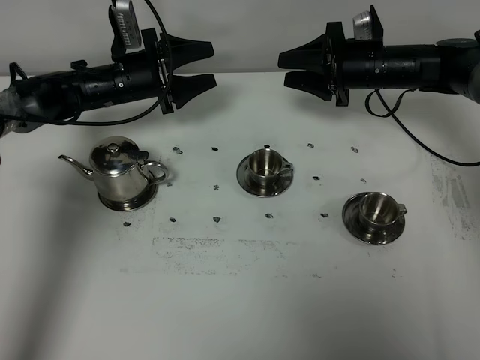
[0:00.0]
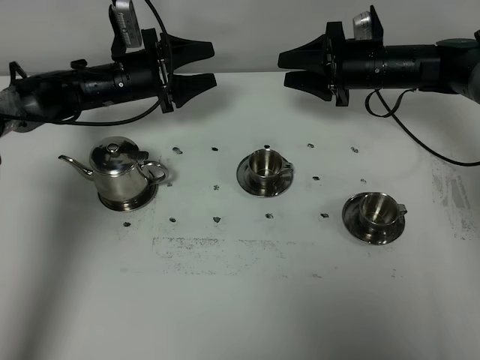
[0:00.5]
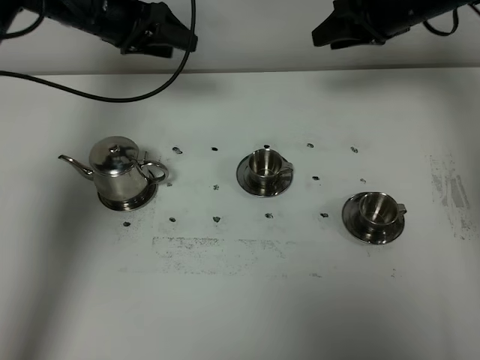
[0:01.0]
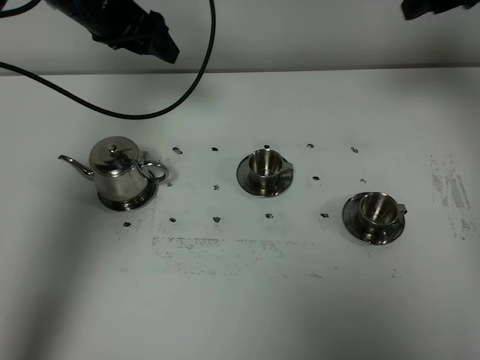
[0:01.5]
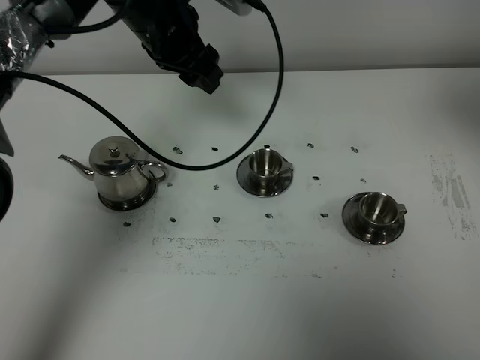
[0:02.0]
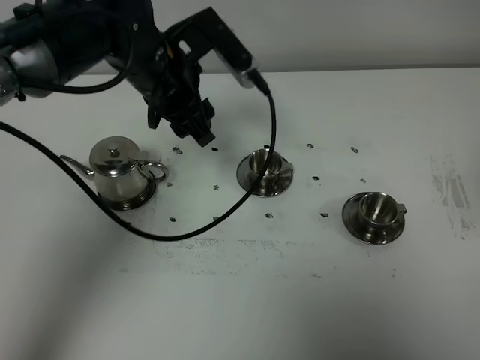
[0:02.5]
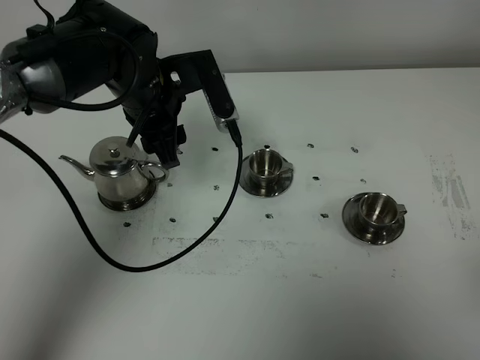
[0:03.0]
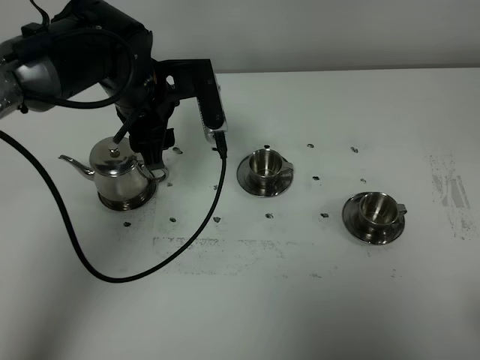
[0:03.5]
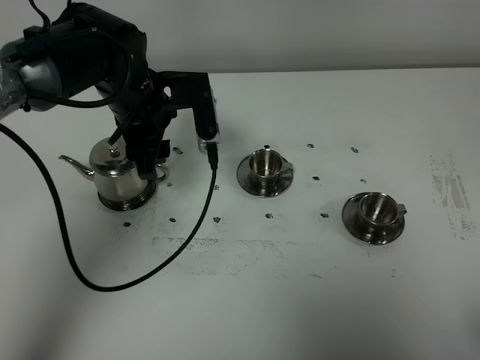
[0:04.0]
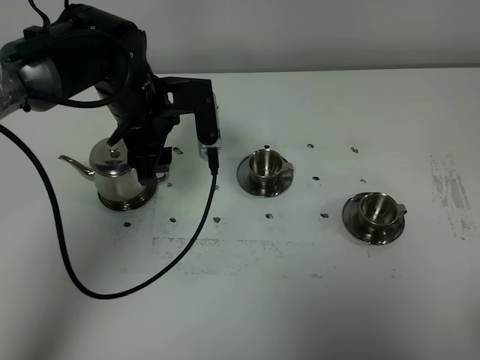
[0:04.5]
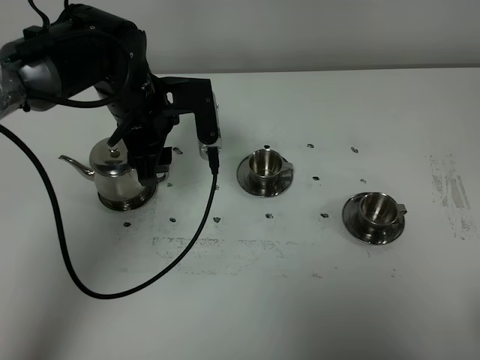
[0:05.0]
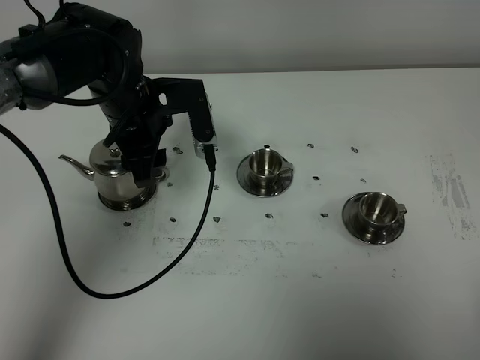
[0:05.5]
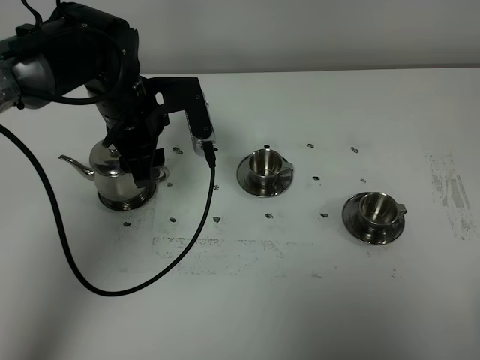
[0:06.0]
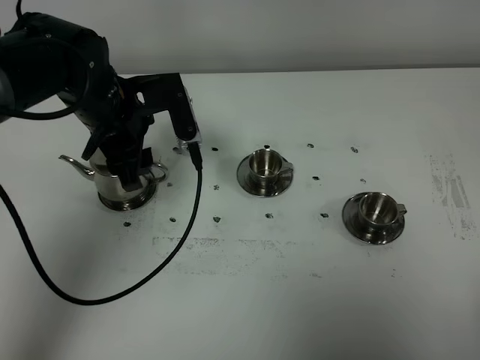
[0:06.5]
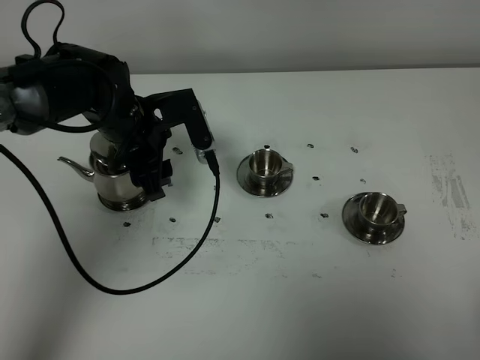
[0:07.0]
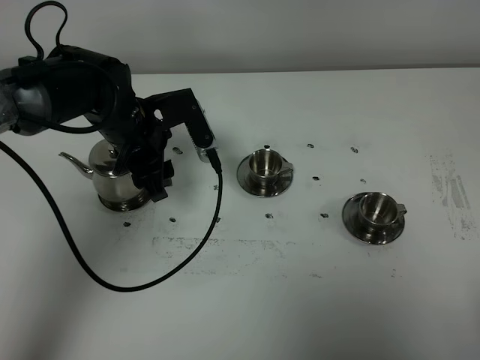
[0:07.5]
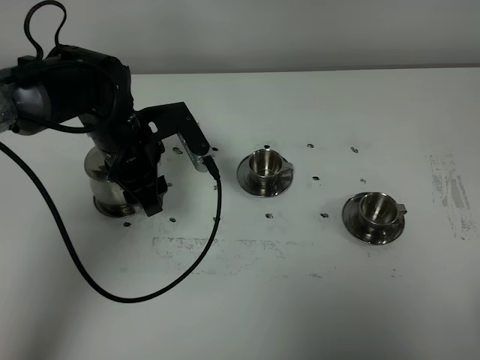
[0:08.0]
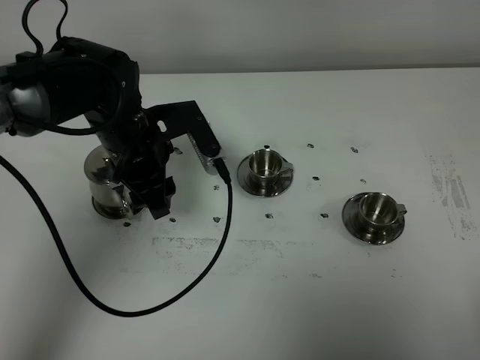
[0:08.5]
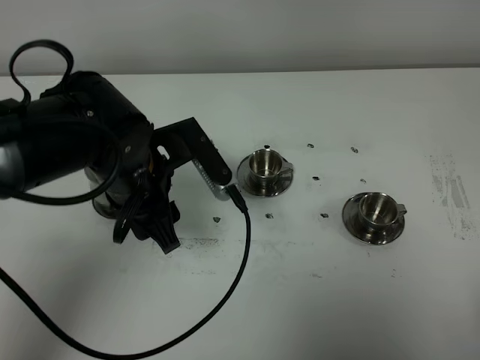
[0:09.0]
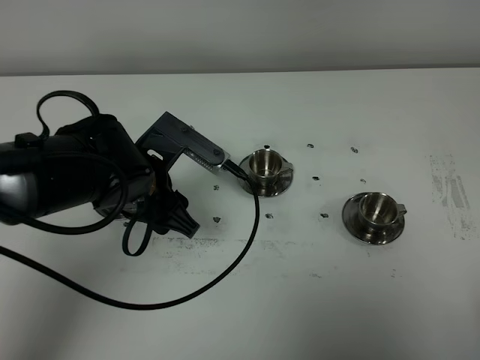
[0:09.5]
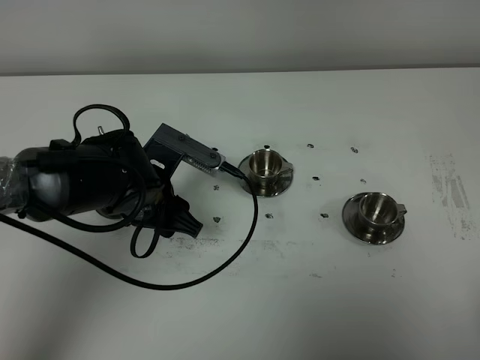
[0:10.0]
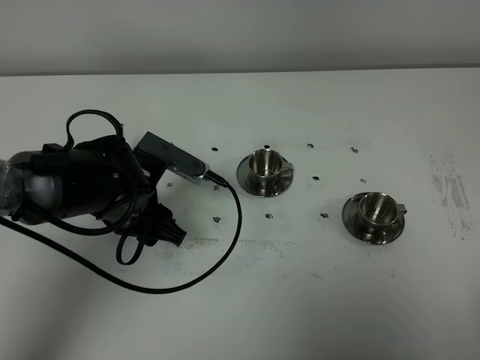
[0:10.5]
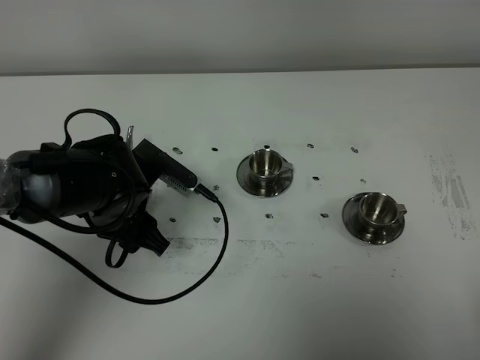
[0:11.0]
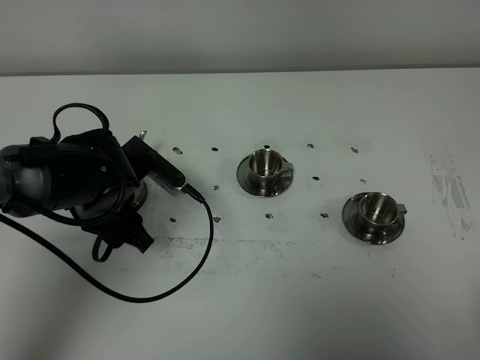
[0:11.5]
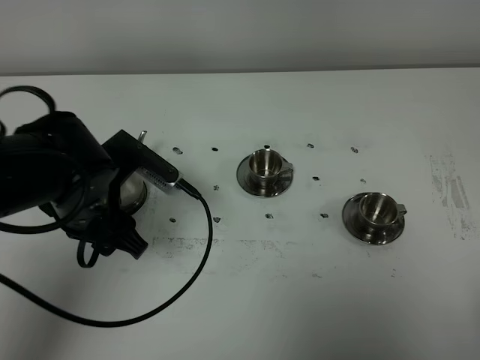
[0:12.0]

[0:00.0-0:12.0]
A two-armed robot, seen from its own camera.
Task of the whole recording: grasp the stainless steel teapot and pour the tea into the two stainless steel teacups one by one, put the stainless steel teapot back in its original place.
0:00.0 to 0:02.0: The left gripper travels upward and to the right by some 20 cm; the right gripper travels upward and backward by about 40 cm.
0:02.0 to 0:04.0: The left gripper is displaced downward and backward by about 10 cm. The right gripper is displaced backward and downward by approximately 30 cm.
0:04.0 to 0:06.0: The grippers move only a little.
0:06.0 to 0:08.0: There are only small adjustments of the grippers.
0:08.0 to 0:10.0: The left gripper travels backward by roughly 5 cm.
0:10.0 to 0:12.0: The left gripper moves about 5 cm.

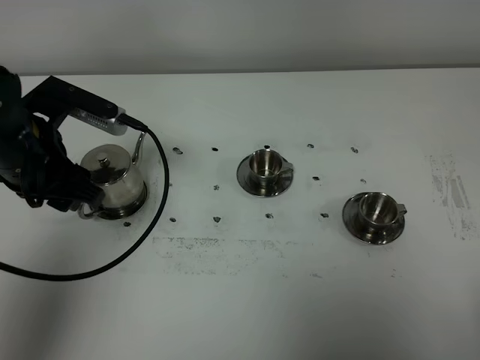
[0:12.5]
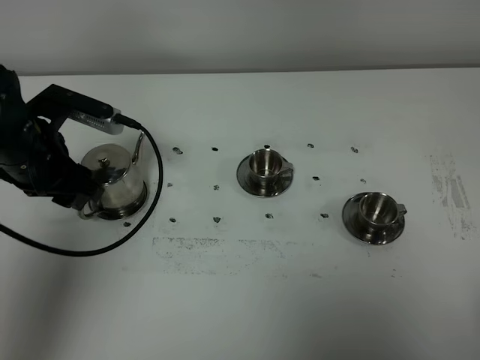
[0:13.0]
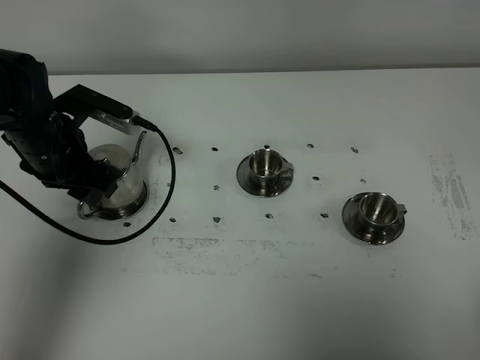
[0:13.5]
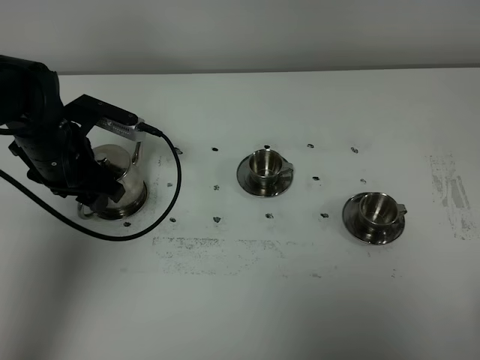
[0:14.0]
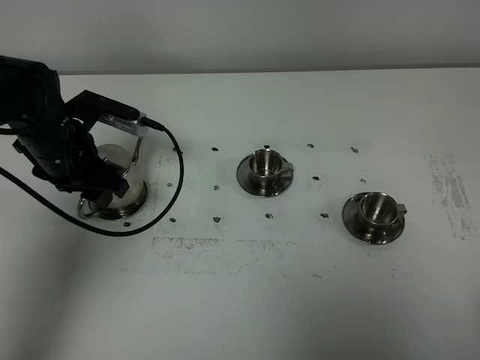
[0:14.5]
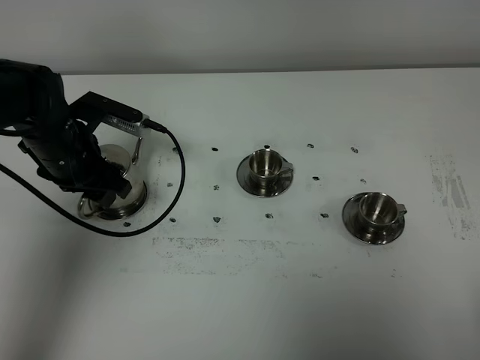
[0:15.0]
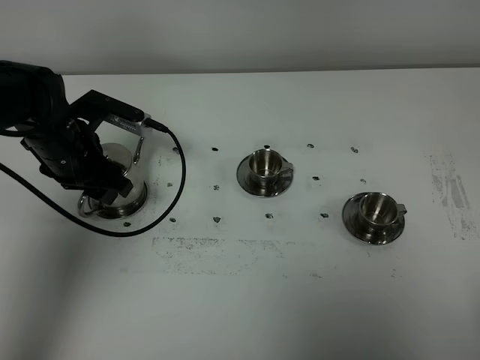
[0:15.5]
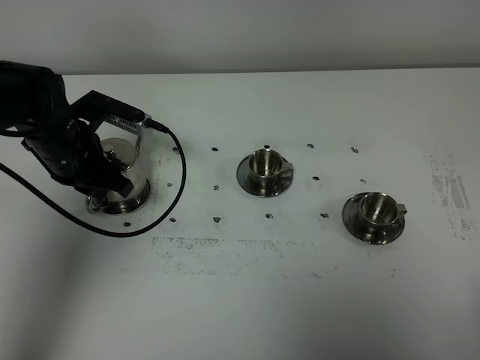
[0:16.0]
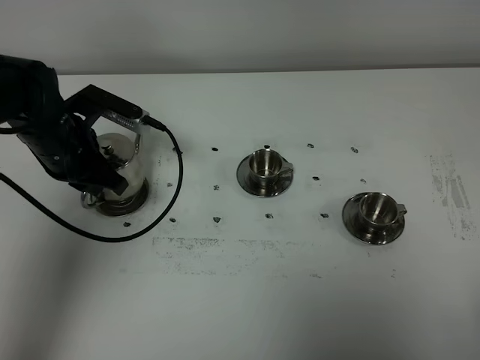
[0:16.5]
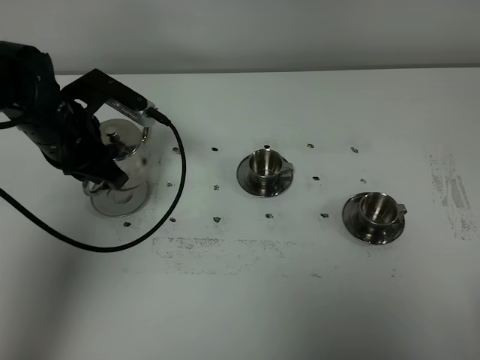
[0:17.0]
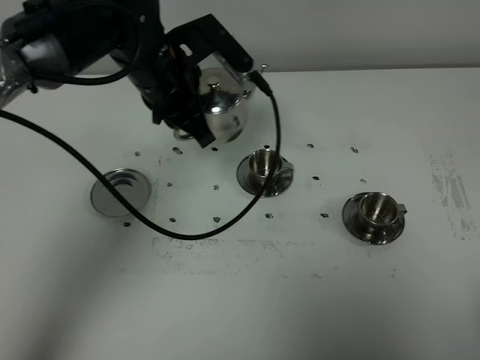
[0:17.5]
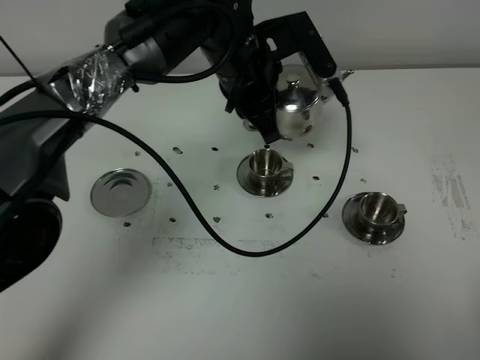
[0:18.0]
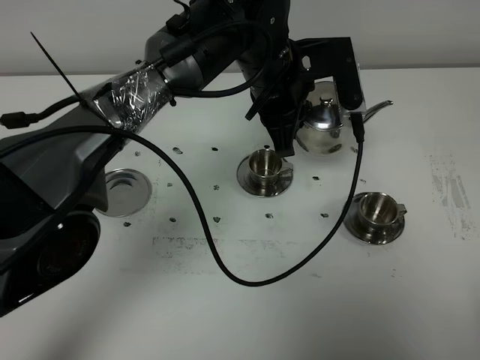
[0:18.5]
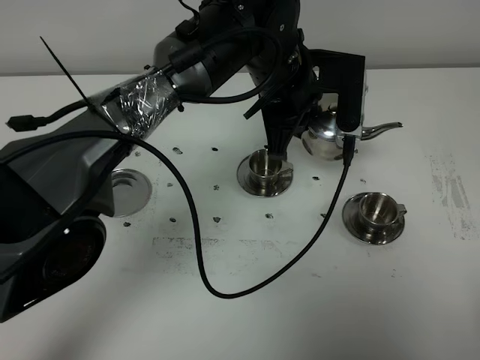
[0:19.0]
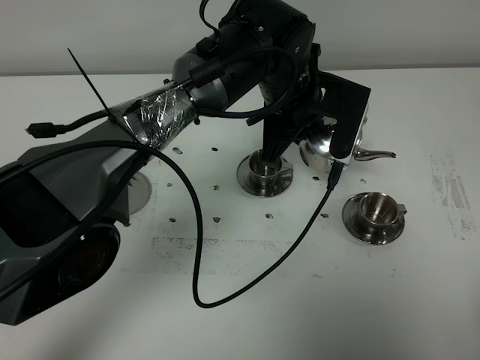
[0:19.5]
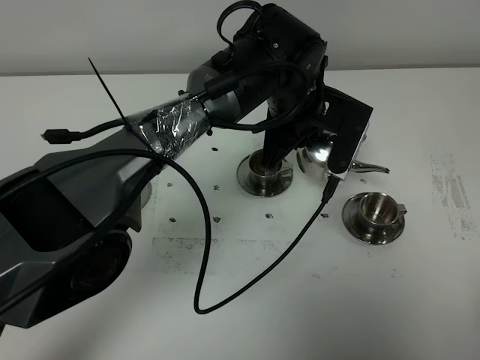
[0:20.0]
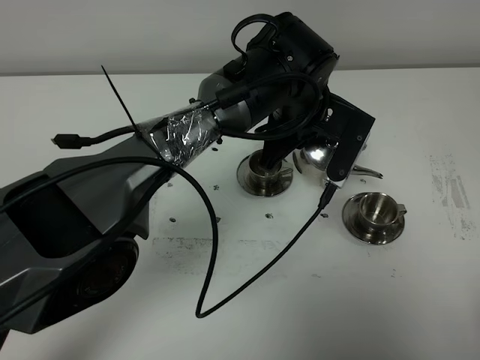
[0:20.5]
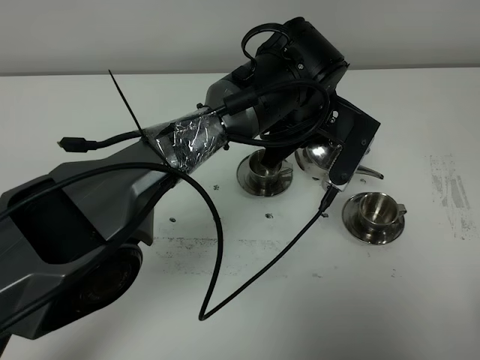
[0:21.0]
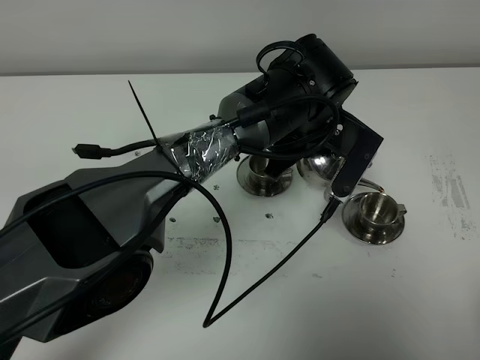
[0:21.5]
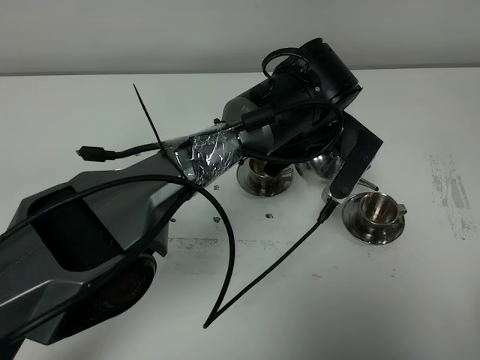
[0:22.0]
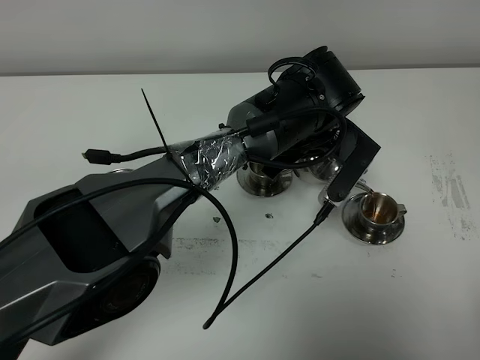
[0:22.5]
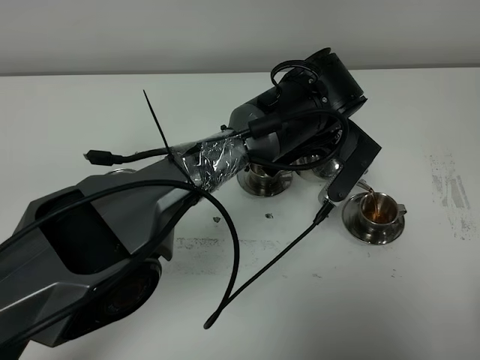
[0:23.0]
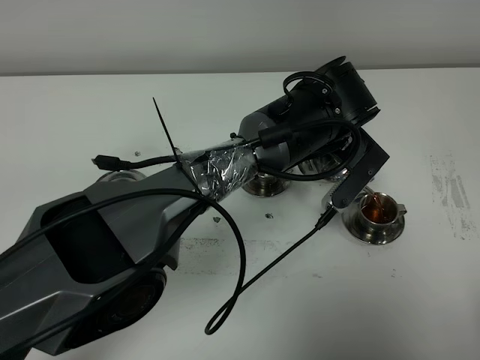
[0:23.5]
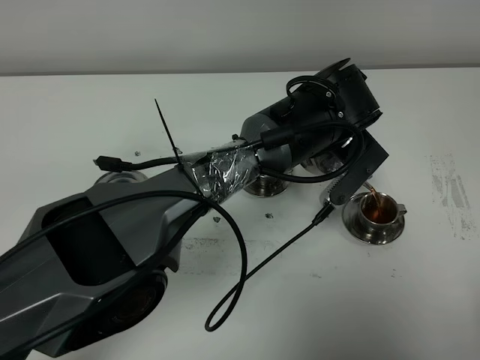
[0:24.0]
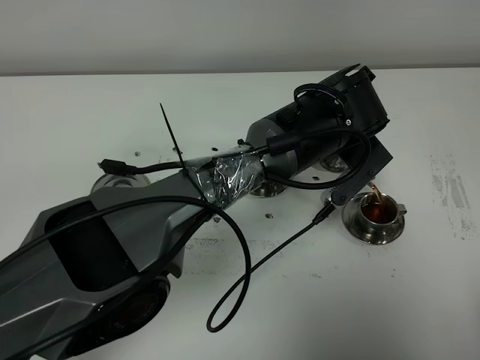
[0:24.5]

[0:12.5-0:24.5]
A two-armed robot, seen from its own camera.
Task of the whole recording: grasp the stainless steel teapot and pour the tea into the two stainless steel teacups one by one, put the stainless steel teapot back in its original place.
Step, 0:12.5 to 0:16.5: Pick up the teapot with the left gripper.
0:12.5 to 0:14.5: The left gripper shifts roughly 10 cm downward and forward.
0:14.5 to 0:16.5: The left gripper closes up.
0:16.5 to 0:18.5: The left gripper moves to the right, roughly 25 cm.
0:18.5 to 0:20.5: The left gripper shifts by roughly 5 cm.
0:22.5 to 0:24.5: The grippers make only small movements.

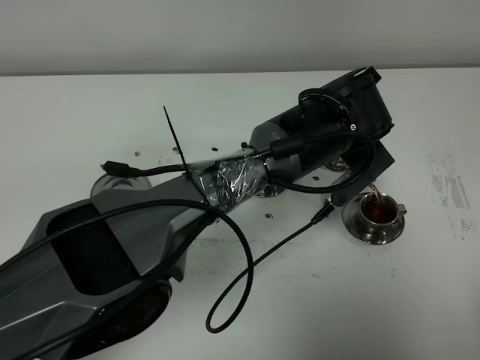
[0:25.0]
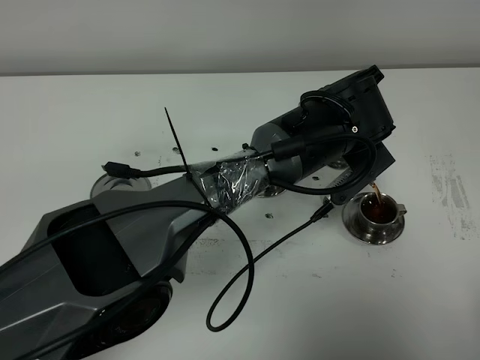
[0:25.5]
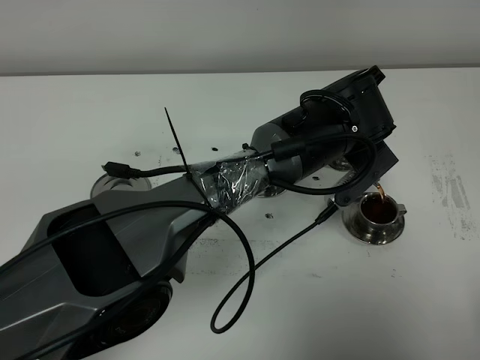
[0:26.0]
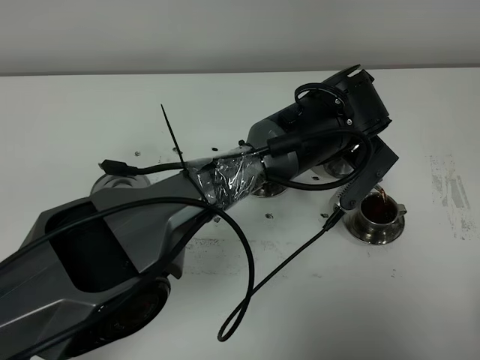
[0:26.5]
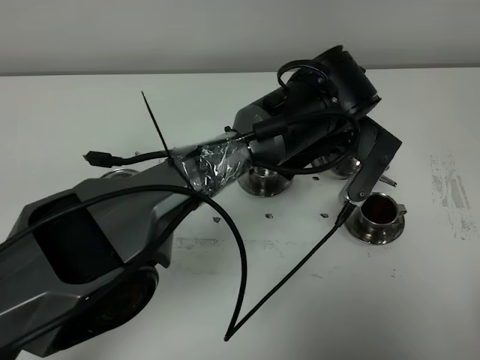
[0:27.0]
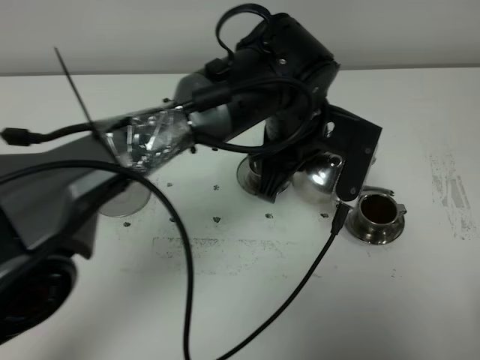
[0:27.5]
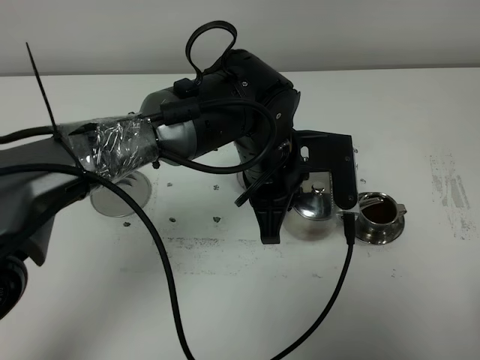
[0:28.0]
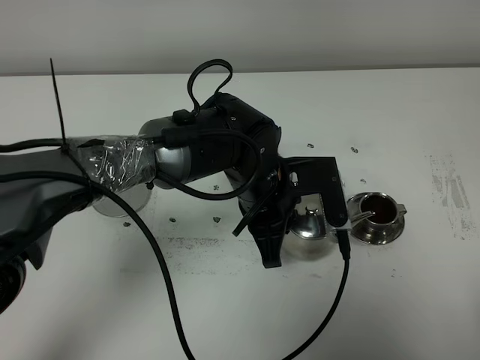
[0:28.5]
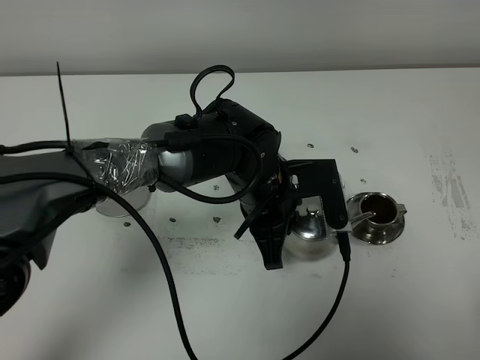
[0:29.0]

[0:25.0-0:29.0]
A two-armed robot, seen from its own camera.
Task of the whole recording: grasp the stainless steel teapot and pour the tea into the two stainless steel teacups one by one, put the stainless steel teapot back in its original place.
0:25.0 to 0:27.0: There are only small adjustments of the grippers.
0:27.0 to 0:29.0: The left gripper heads to the left, downward and backward, covering approximately 10 cm.
